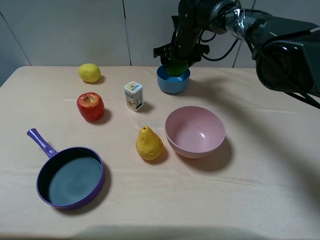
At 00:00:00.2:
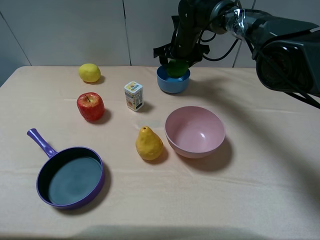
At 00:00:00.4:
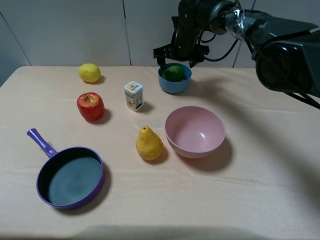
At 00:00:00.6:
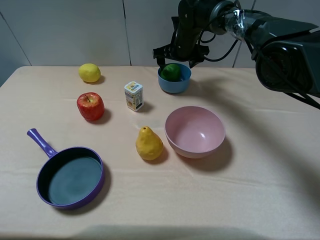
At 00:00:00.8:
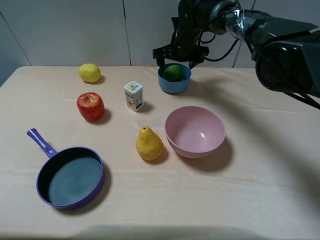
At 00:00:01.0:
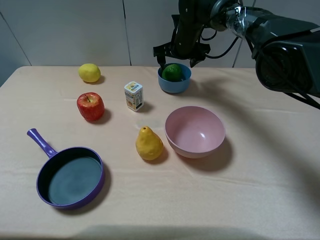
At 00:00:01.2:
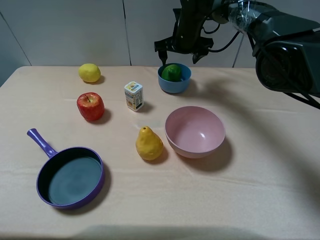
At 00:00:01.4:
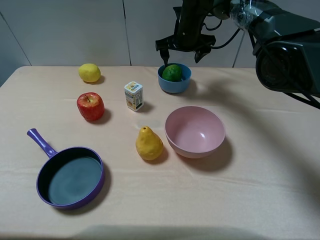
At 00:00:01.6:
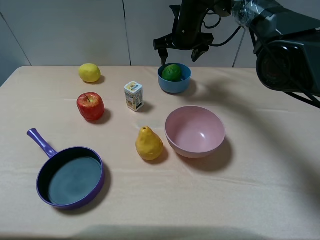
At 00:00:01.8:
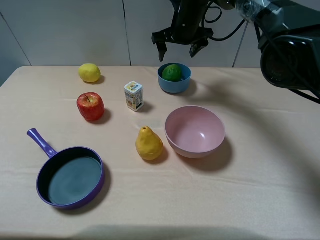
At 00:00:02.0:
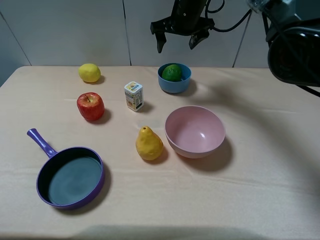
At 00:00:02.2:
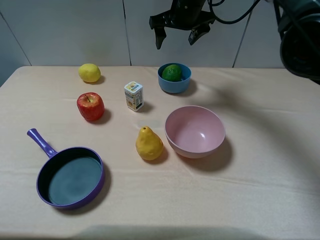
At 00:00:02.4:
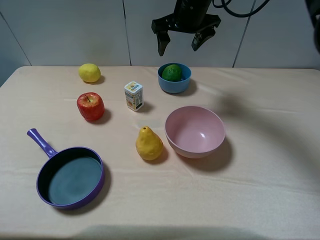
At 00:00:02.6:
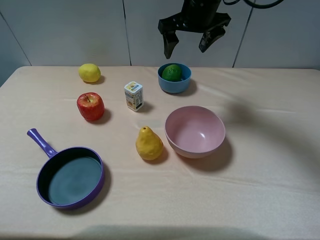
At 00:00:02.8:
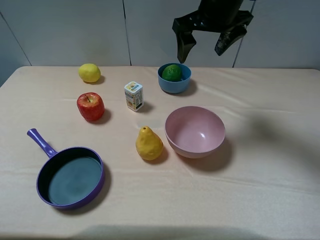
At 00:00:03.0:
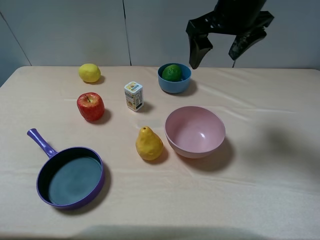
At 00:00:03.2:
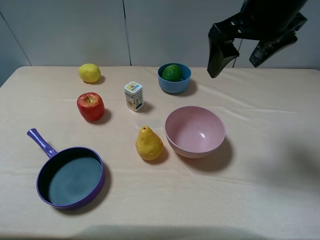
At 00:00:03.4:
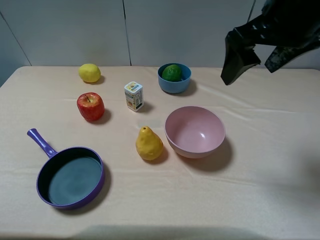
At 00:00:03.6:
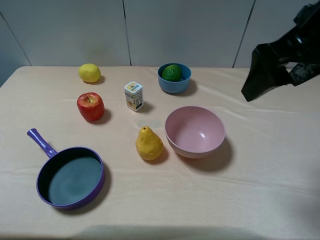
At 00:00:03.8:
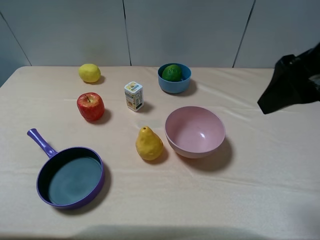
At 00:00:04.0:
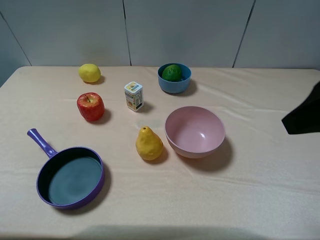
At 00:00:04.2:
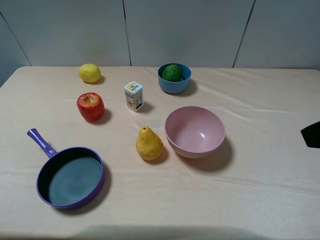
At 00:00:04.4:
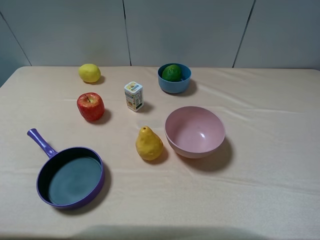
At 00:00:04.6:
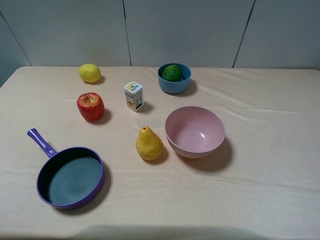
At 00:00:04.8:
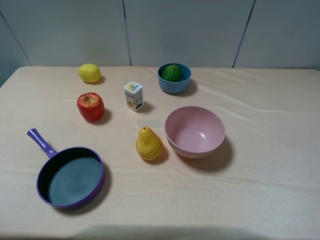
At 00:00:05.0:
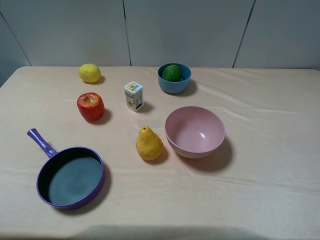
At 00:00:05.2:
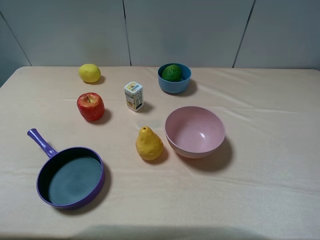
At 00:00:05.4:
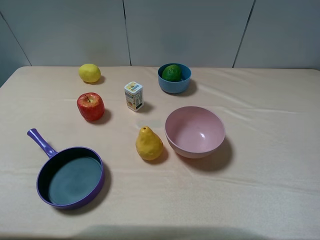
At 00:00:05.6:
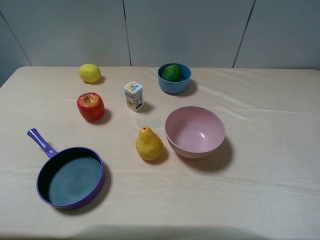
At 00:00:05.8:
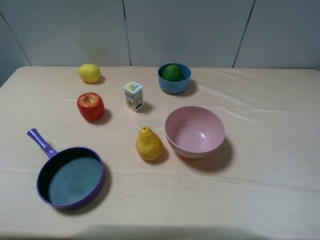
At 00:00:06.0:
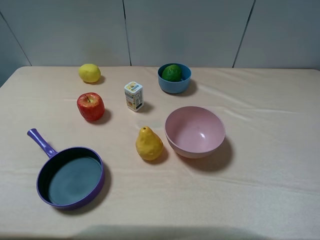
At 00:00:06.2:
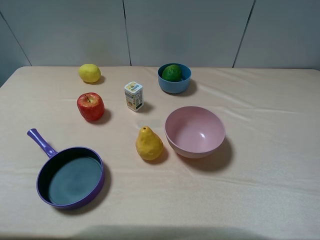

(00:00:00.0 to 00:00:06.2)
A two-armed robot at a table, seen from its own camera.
Task of the whole recording: pick up an item with a gripper and place it in a random container on the table.
00:00:00.0 - 00:00:01.6: The right gripper opens its fingers.
00:00:01.6 - 00:00:03.2: The right gripper goes about 25 cm backward, upward and to the right.
00:00:03.2 - 00:00:04.6: The right gripper is displaced backward and to the right by about 25 cm.
